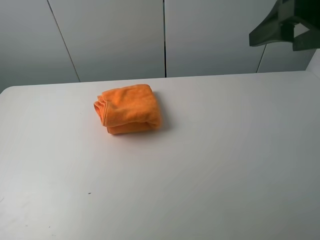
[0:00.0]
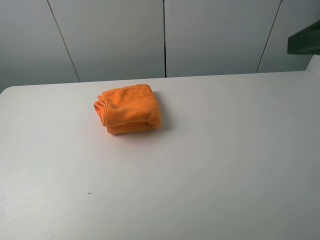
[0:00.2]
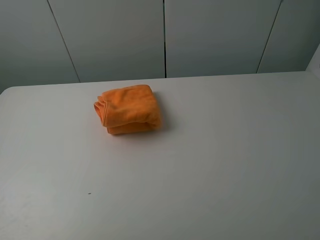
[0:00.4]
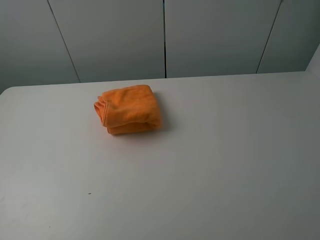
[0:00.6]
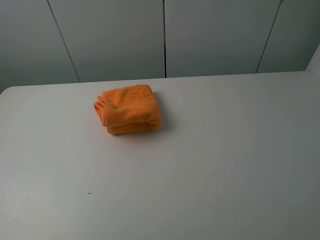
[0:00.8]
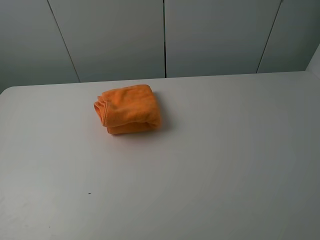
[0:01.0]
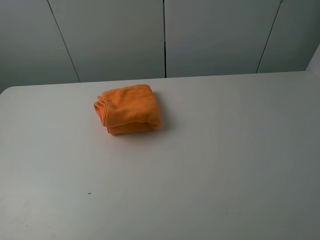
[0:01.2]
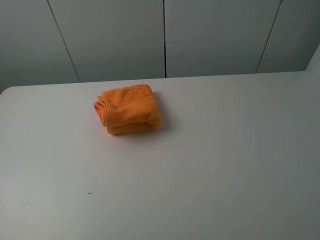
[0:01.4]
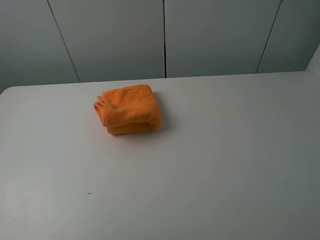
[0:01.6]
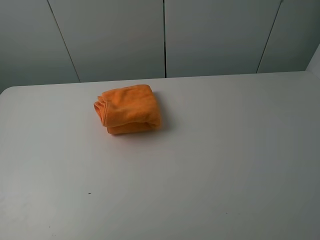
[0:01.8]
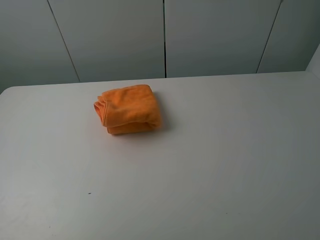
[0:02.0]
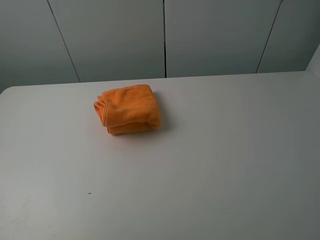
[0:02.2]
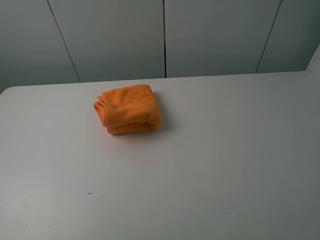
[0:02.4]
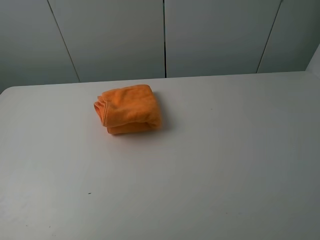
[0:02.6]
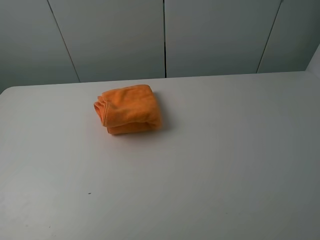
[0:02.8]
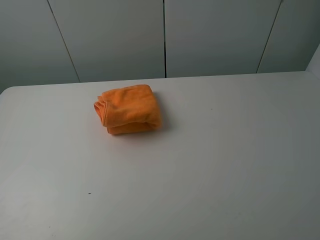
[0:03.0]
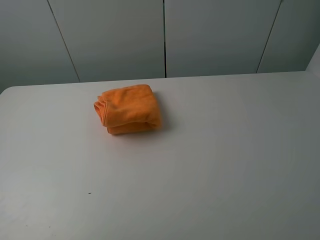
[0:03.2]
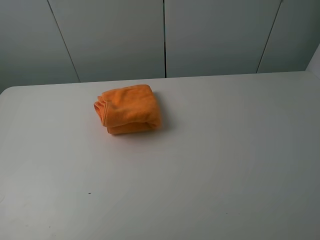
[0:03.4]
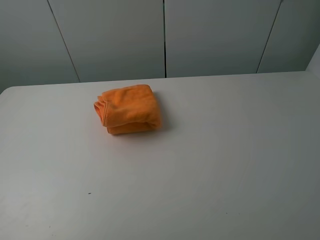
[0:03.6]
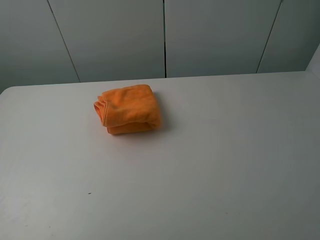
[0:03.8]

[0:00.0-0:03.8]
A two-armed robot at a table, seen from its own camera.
Task of the whole recording: fold the towels on the table.
0:00.0 to 0:01.2: The left gripper goes roughly 20 cm backward and downward. Meanwhile the right gripper is displaced backward by approximately 20 cm.
0:02.6 to 0:03.8: Both grippers stay put.
